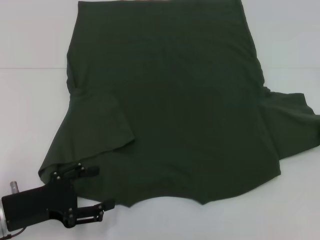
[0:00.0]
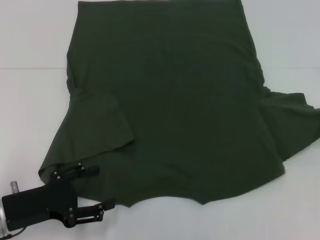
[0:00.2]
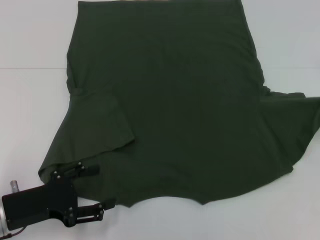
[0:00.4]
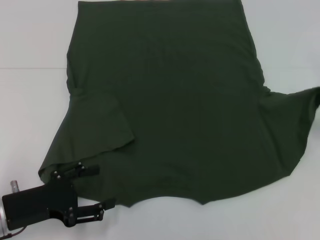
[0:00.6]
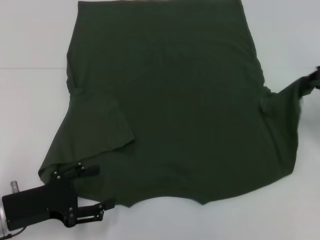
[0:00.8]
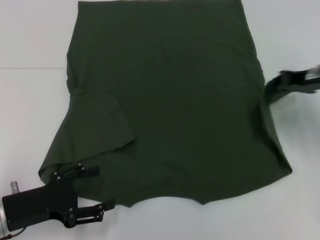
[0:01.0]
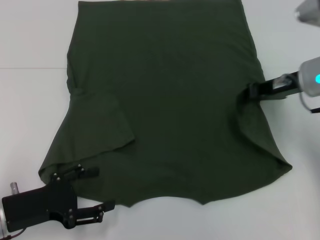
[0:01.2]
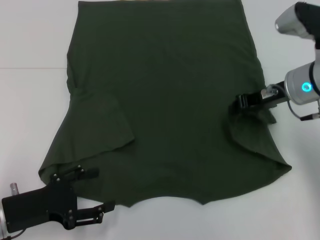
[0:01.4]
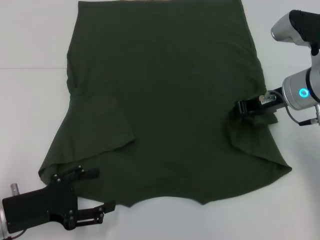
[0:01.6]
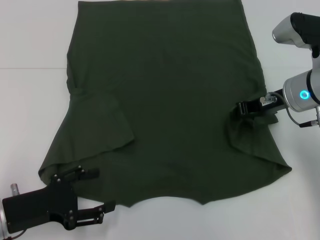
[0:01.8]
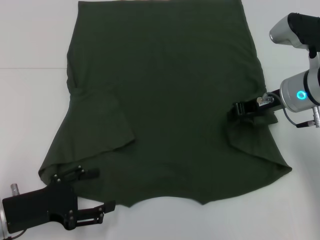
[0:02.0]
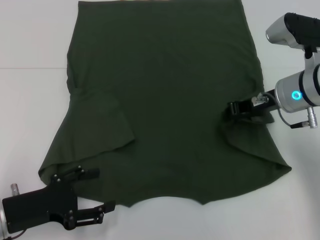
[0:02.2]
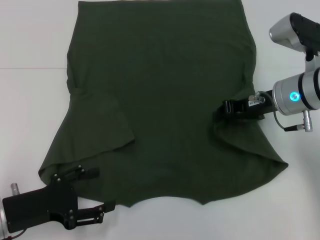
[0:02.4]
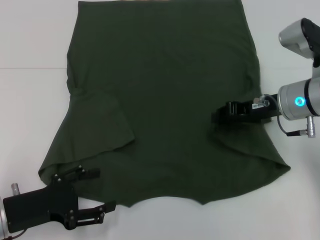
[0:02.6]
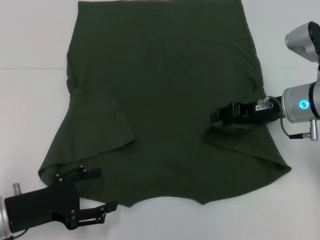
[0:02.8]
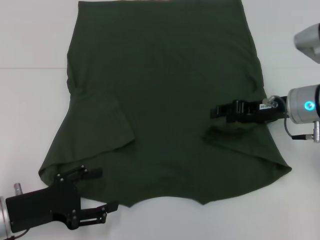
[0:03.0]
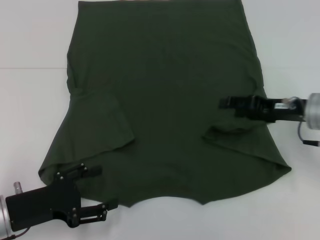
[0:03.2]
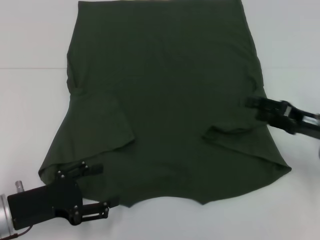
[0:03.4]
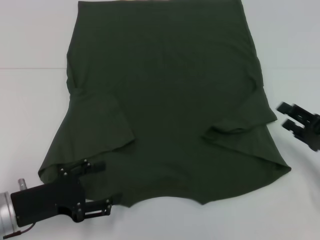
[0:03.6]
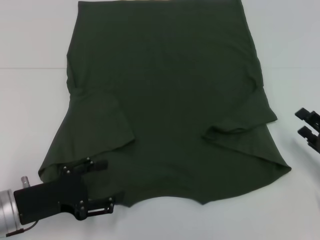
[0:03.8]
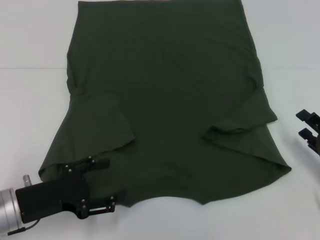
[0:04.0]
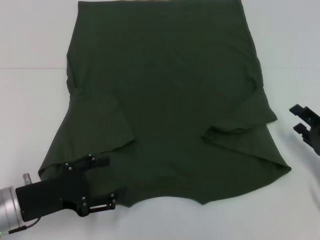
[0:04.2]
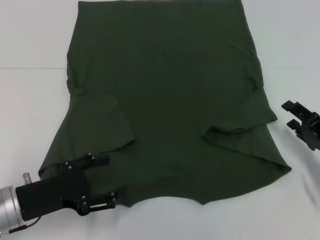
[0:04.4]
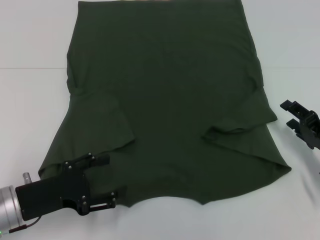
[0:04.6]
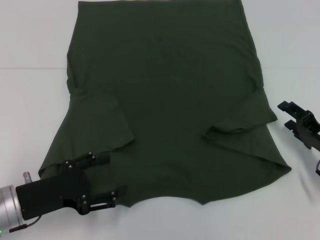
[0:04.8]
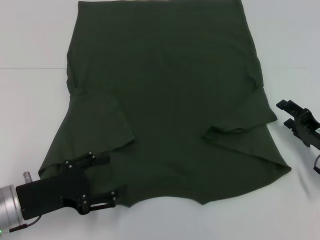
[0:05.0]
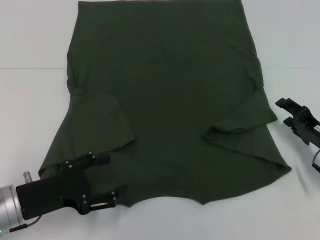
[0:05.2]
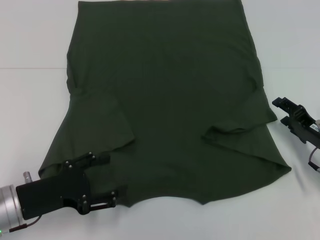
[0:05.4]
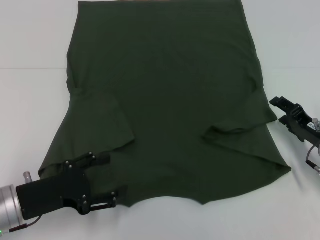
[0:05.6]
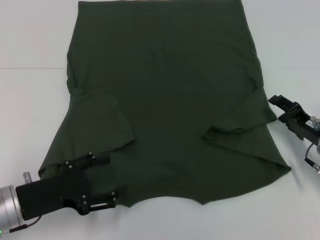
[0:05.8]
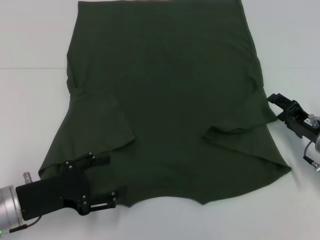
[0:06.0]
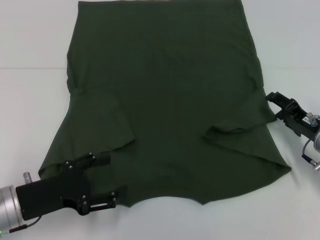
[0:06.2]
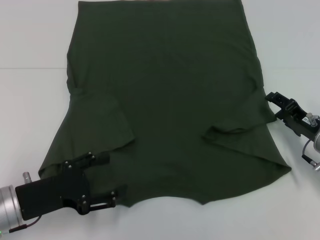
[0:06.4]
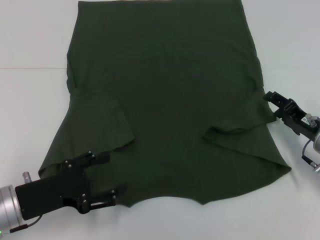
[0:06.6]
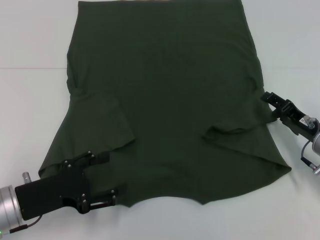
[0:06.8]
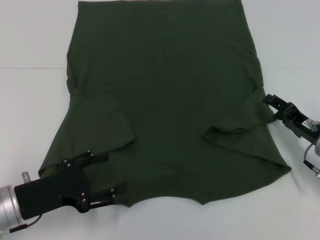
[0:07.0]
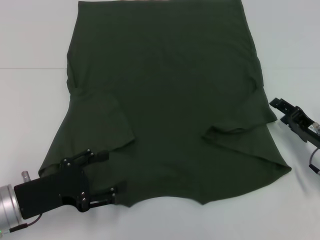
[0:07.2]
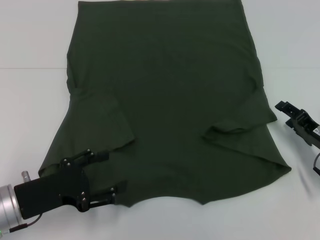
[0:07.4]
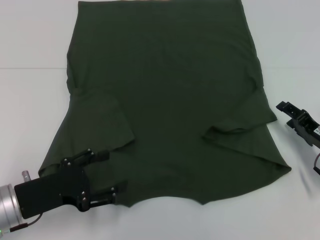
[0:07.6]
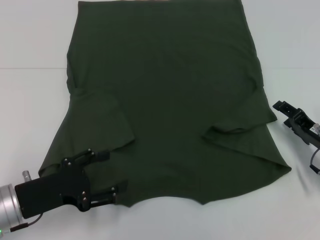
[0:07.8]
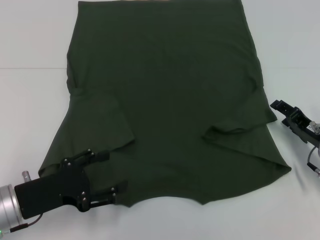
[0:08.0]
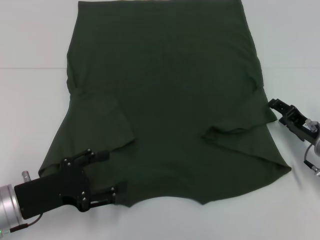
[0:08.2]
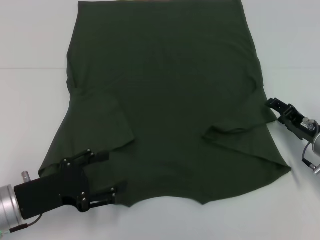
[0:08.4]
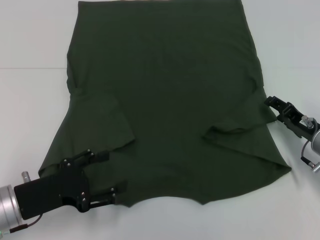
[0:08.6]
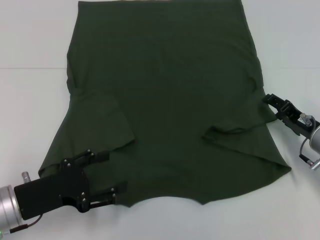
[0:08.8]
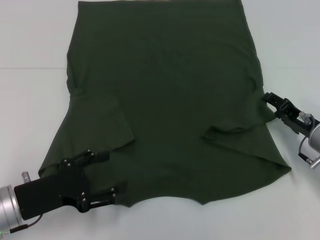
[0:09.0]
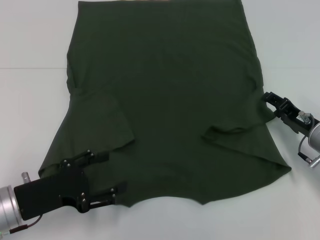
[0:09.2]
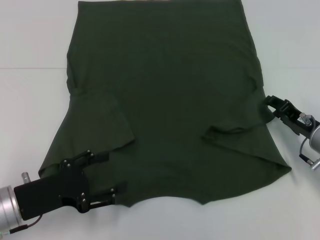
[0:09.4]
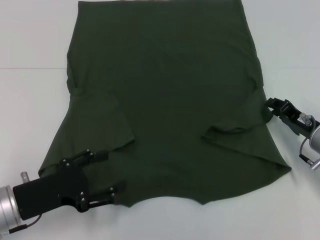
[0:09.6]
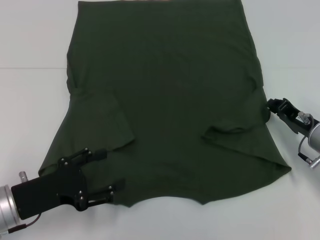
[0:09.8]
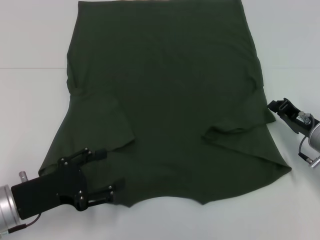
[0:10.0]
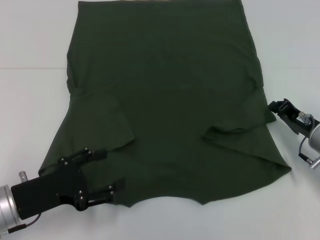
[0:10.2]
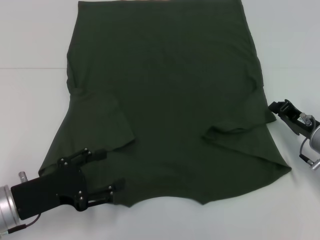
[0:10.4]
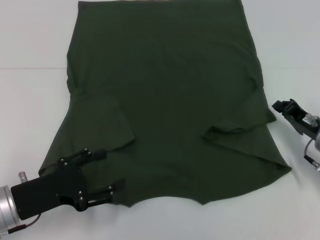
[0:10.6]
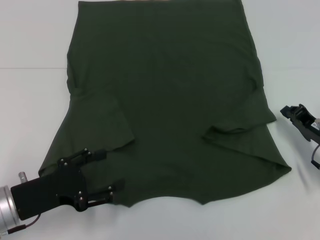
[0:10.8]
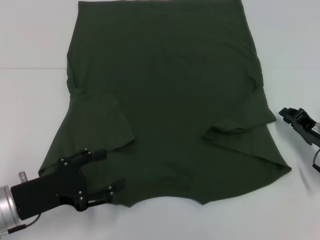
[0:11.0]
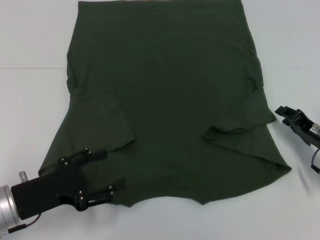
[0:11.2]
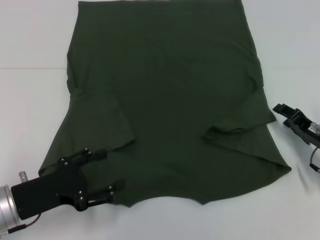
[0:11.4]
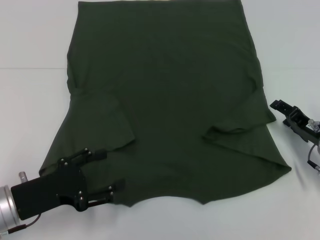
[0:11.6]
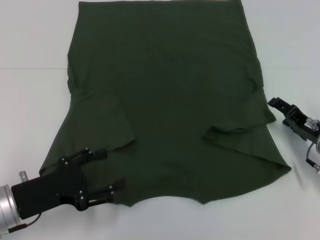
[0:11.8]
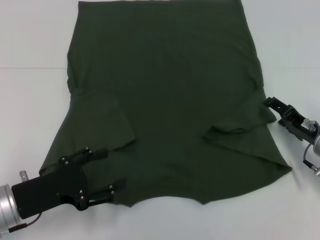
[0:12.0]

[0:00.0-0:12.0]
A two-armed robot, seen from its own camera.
Step, 0:00.0 to 0:03.2: Fold the bottom right sleeve with your right hand.
0:00.0 to 0:01.6: The right gripper goes roughly 15 cm to the left.
0:01.6 to 0:03.0: The right gripper opens.
0:03.0 to 0:04.4: The right gripper travels downward, backward and to the right by roughly 15 cm.
0:04.4 to 0:06.0: The right gripper moves about 5 cm.
0:06.0 to 0:09.0: The grippers stay close to where they were, moving slightly.
0:09.0 to 0:10.4: The right gripper closes up.
0:10.4 to 0:12.0: The right gripper opens.

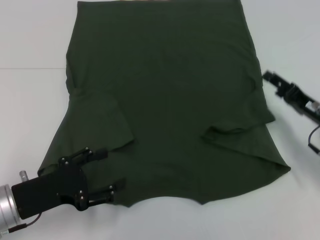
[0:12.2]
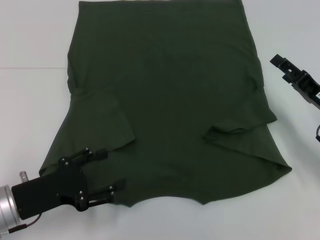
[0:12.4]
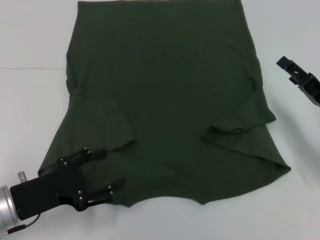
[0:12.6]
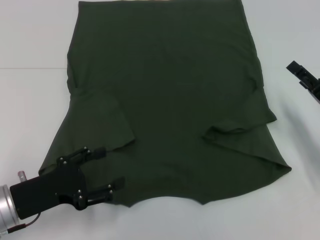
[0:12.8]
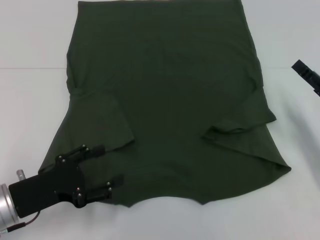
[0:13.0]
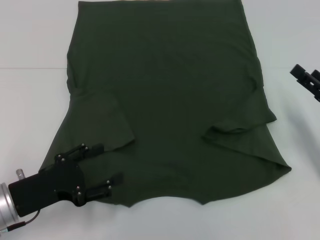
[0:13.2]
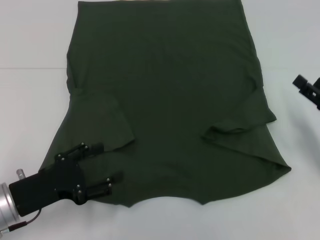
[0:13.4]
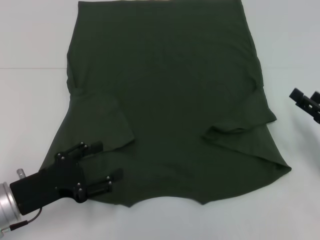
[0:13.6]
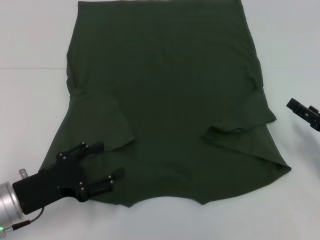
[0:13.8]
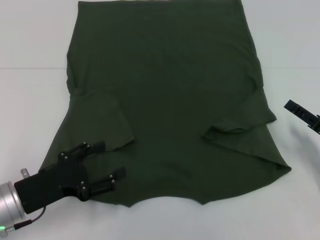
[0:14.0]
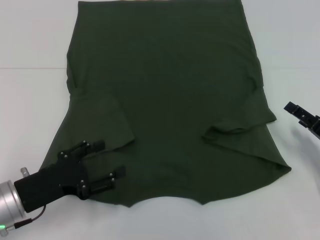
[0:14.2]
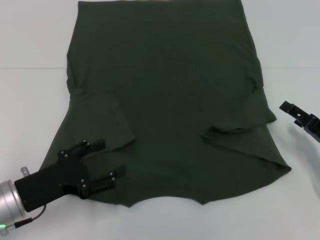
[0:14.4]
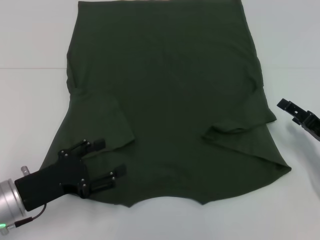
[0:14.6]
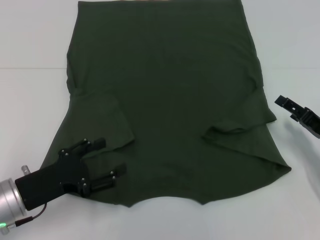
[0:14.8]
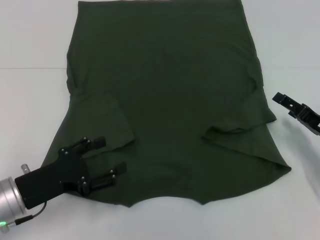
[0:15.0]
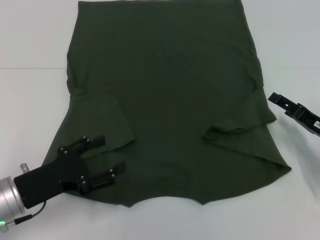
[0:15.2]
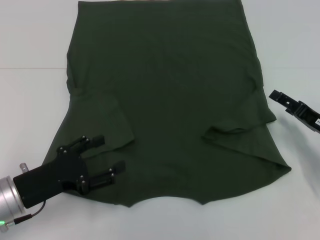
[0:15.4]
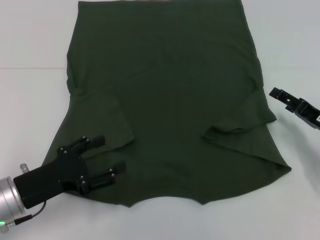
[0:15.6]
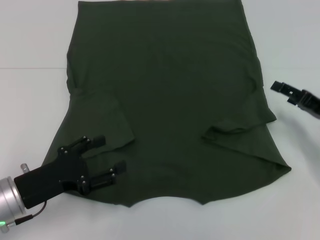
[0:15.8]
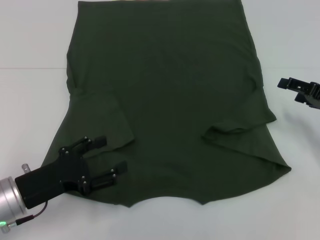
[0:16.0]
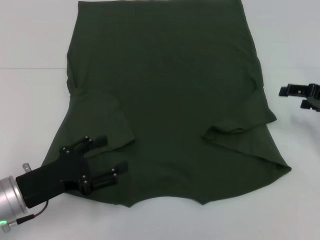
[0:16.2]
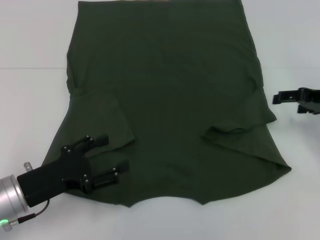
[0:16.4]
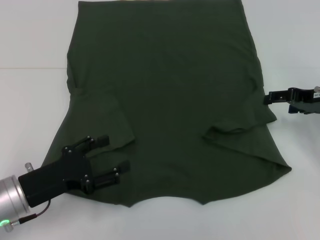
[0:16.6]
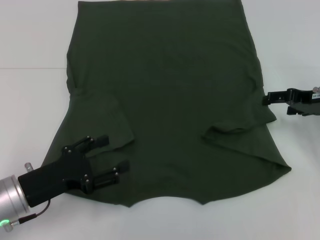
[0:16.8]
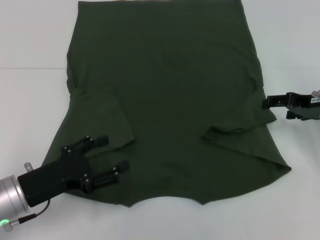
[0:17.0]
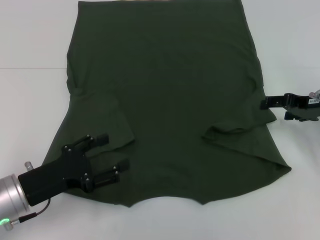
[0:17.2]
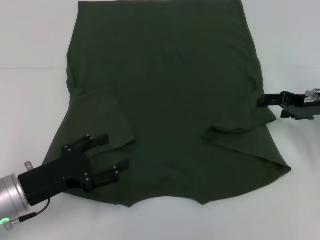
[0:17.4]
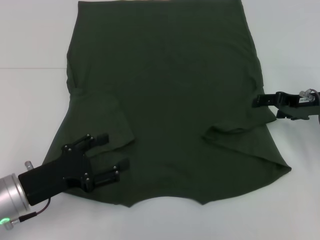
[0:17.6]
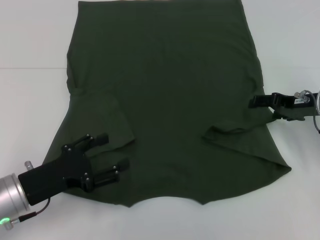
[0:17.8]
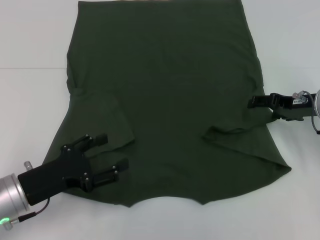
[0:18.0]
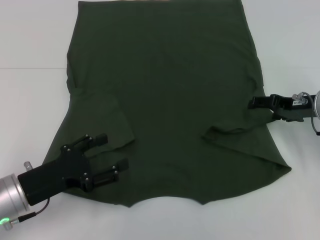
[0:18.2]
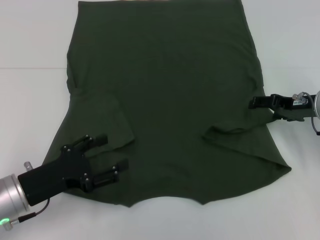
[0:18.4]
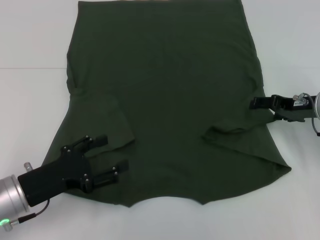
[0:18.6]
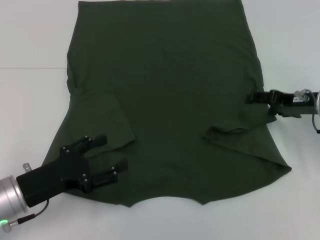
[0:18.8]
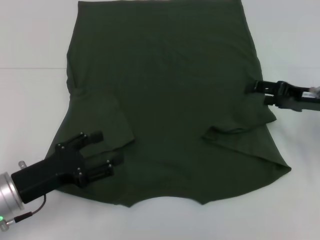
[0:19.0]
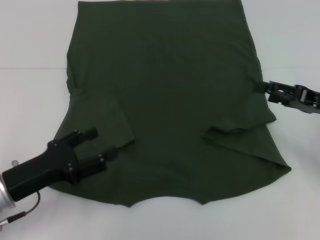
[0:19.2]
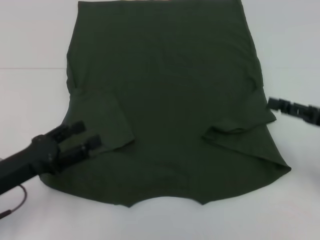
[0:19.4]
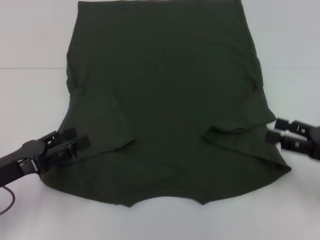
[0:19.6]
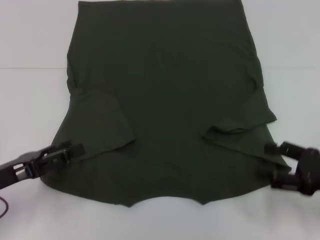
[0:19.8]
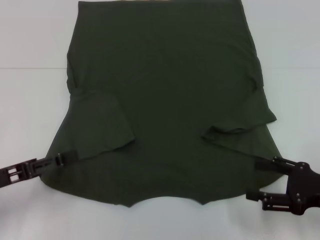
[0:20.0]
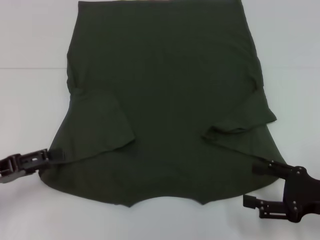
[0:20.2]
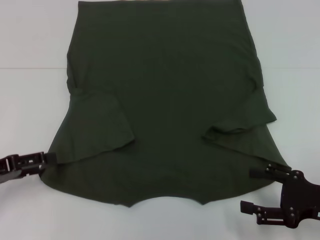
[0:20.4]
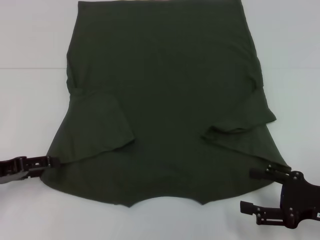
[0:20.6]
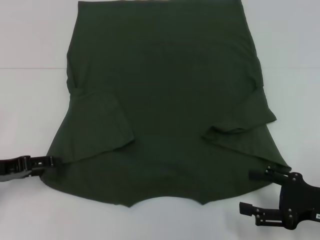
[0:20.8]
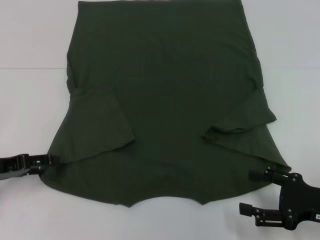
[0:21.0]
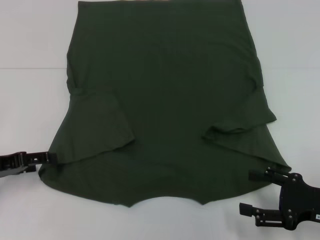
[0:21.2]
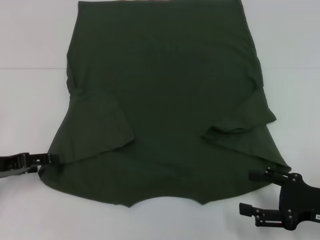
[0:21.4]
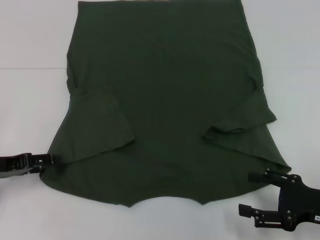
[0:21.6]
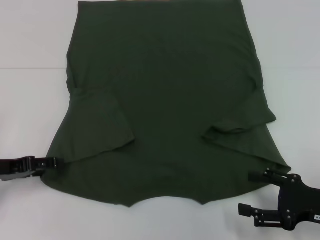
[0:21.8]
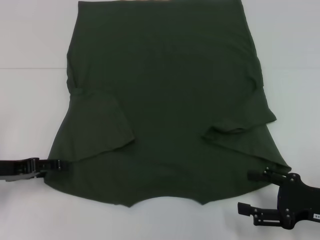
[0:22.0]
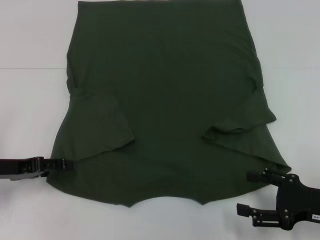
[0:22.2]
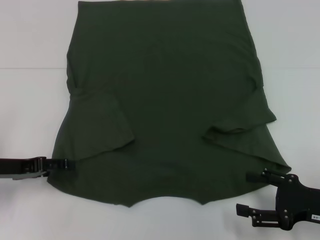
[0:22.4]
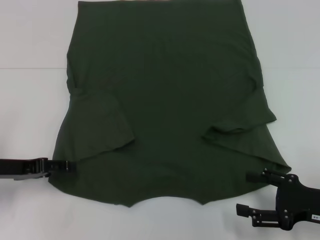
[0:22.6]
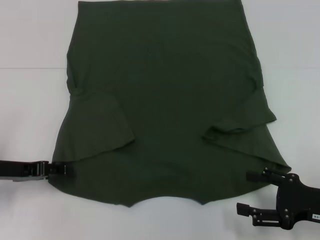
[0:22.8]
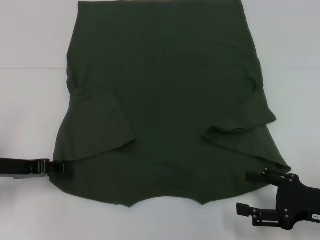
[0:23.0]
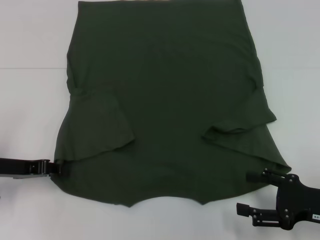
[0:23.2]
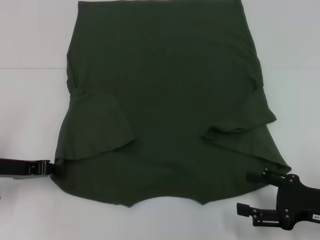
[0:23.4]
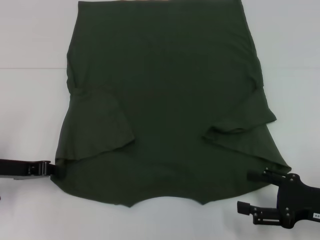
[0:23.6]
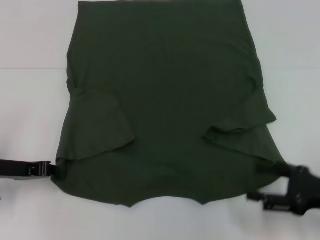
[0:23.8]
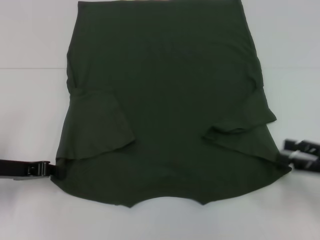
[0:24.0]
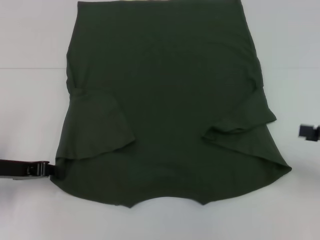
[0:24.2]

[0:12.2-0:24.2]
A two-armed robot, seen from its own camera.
Step, 0:12.2 to 0:22.4: Grab the bottom left corner with your left hand.
0:12.2 to 0:13.8: The right gripper goes some 5 cm backward.
0:13.8 to 0:15.2: The grippers move only a little.
0:15.2 to 0:16.6: The right gripper shifts about 10 cm upward and forward.
0:16.6 to 0:18.2: The grippers move only a little.
0:18.2 to 0:19.8: The right gripper travels backward by roughly 15 cm; the left gripper moves to the left, roughly 5 cm.
0:19.8 to 0:21.2: The left gripper goes roughly 5 cm forward.
0:21.2 to 0:22.6: There are only small adjustments of the grippers.
0:22.6 to 0:24.2: The left gripper closes up. Meanwhile the right gripper shifts approximately 10 cm upward and to the right.
